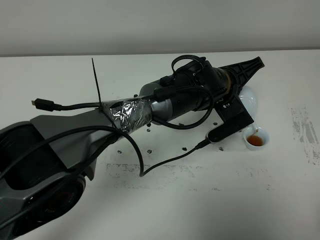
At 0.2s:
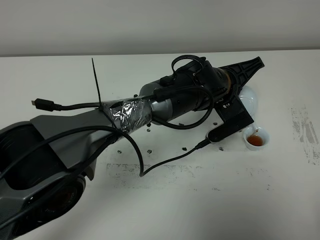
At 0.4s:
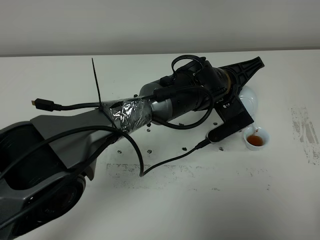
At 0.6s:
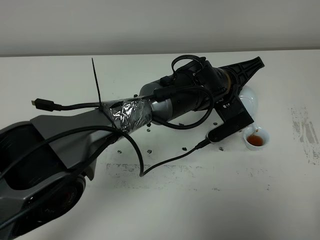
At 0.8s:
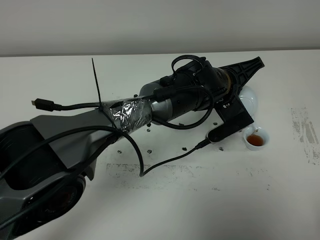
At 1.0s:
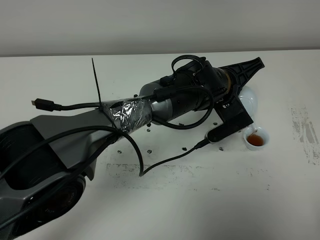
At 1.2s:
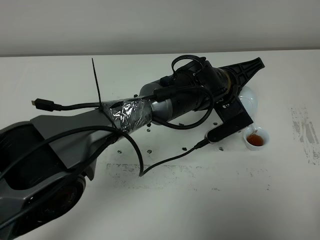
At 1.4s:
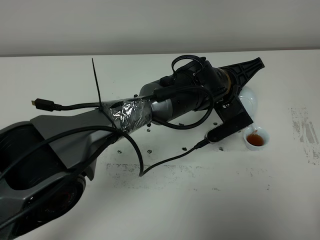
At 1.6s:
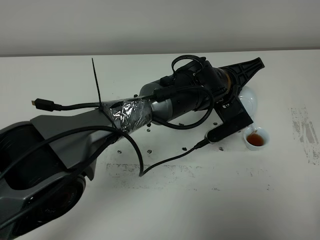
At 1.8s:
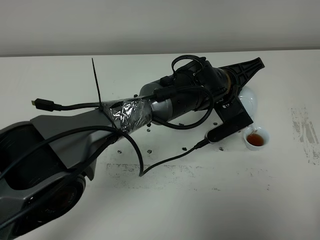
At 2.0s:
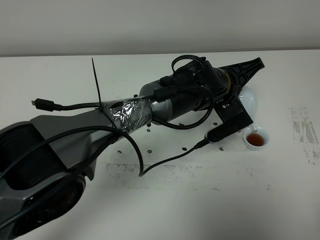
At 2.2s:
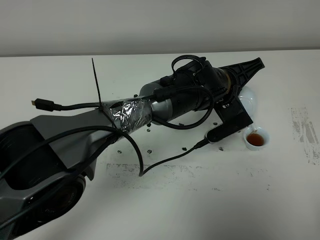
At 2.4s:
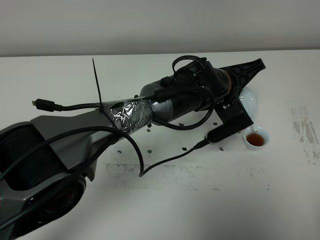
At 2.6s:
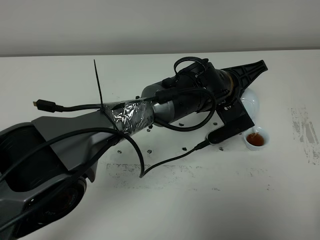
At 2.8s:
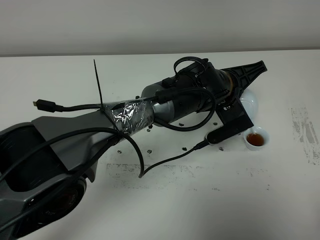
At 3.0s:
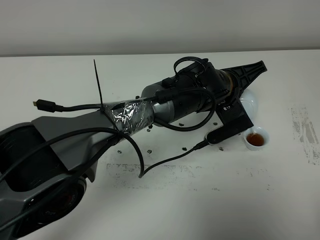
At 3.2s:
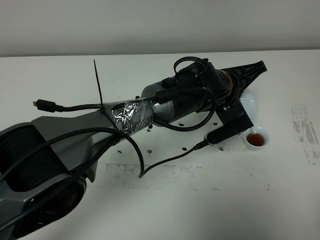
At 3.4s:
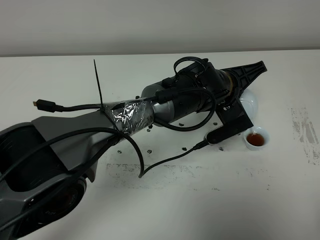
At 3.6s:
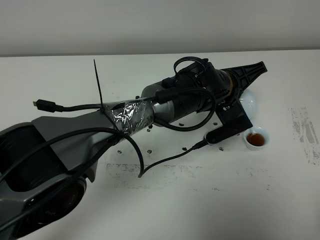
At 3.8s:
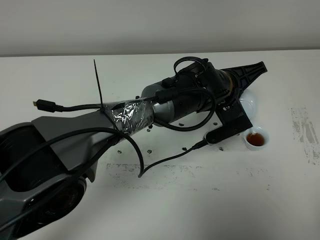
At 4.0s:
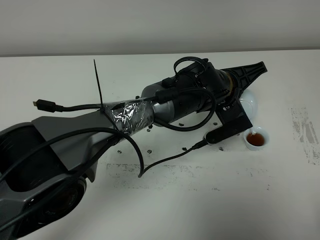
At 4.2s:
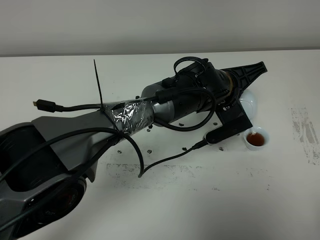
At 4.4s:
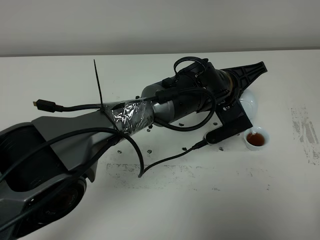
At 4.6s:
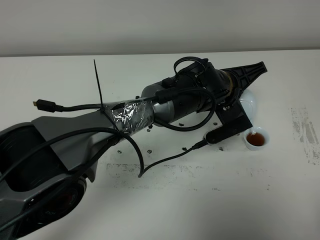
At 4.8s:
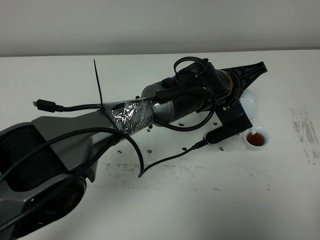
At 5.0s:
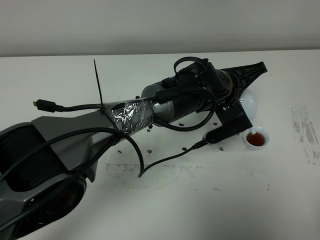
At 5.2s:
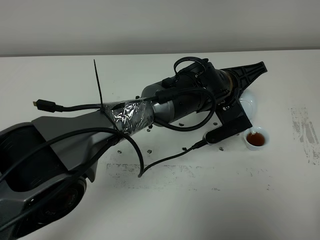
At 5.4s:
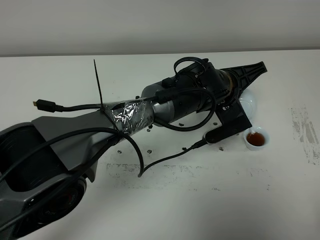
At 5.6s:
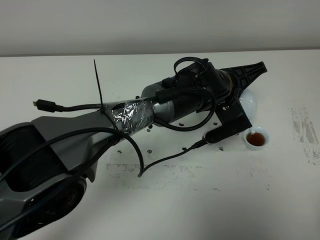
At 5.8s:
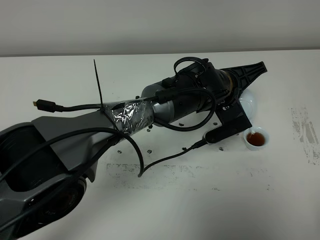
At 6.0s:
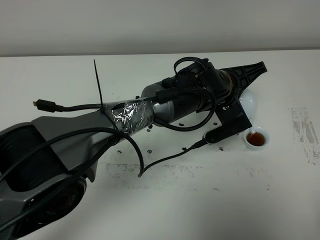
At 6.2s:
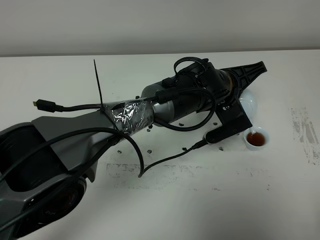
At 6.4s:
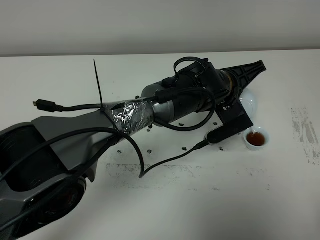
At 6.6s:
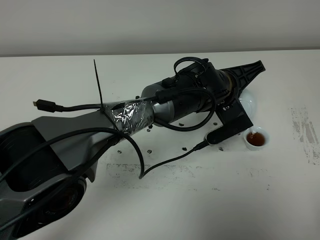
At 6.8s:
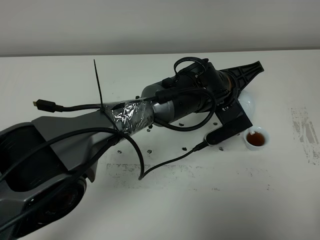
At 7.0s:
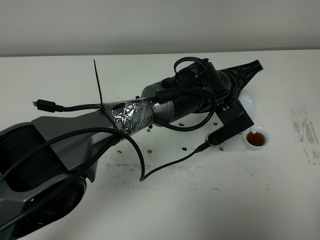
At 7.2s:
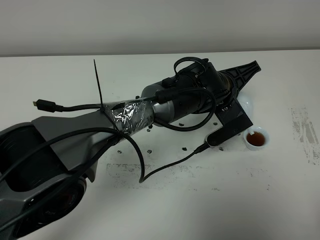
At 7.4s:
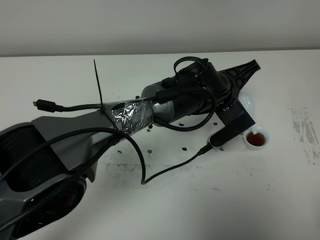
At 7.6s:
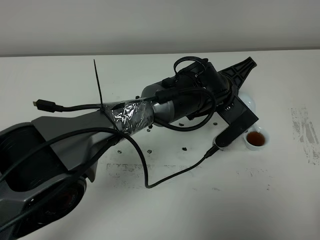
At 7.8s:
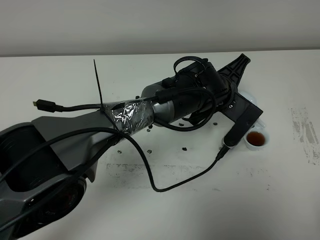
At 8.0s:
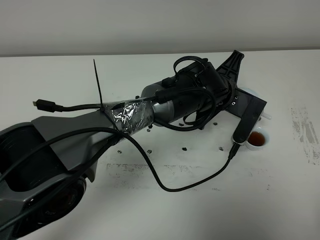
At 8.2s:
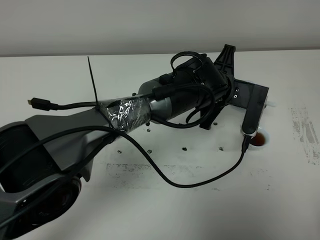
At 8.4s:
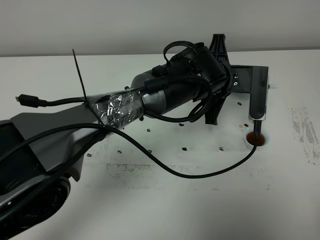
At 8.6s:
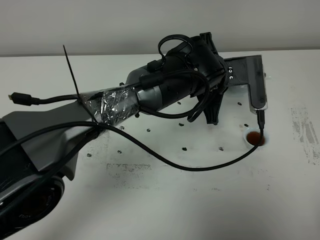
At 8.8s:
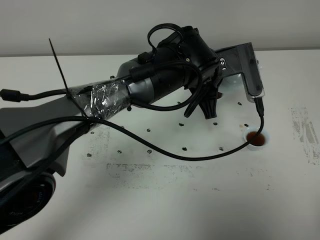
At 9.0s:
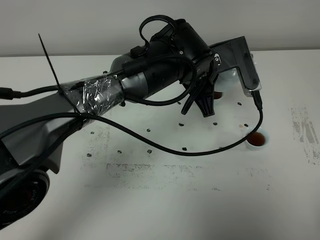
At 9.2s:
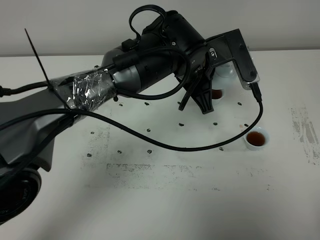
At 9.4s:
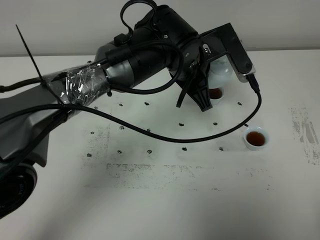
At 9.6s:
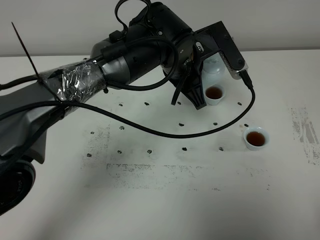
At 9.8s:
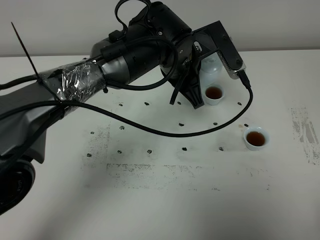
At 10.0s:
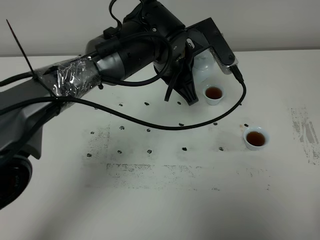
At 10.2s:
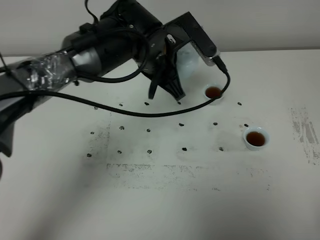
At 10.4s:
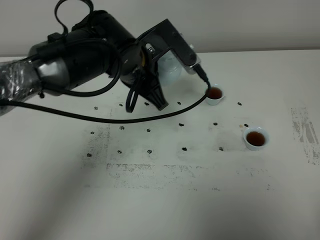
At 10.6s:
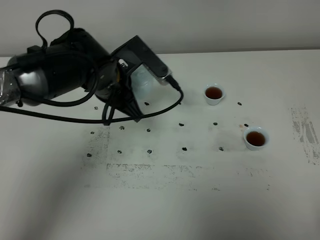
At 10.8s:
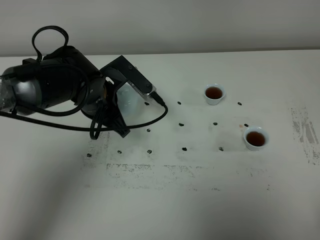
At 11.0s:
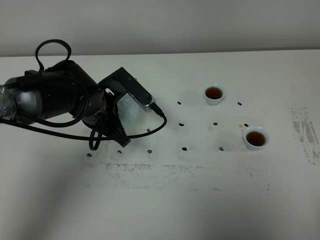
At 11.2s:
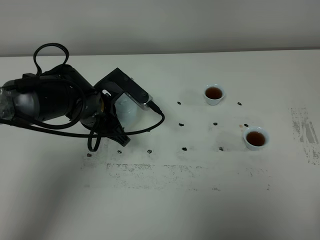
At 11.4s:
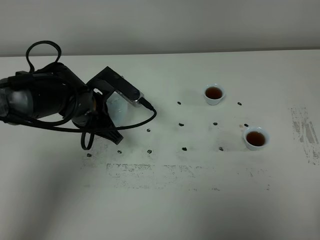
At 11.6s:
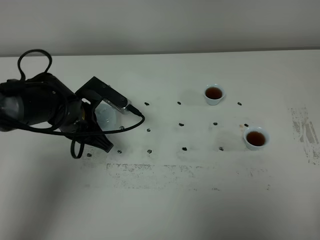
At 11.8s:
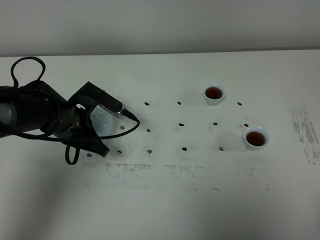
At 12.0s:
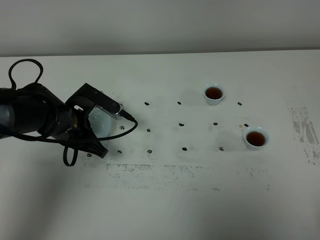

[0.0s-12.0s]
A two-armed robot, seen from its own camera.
Task of the whole recording: grasp the blue porcelain teapot and pour the tea into the two blue porcelain teacups one by one, put the blue porcelain teapot back in its original place.
Step, 0.0s to 7.8s: Pour tea into the teacup with the left gripper.
0.0s to 6.0s: Both grippers stay put.
6.0s to 7.6s: There are only small adjustments of the grippers.
7.6s to 9.0s: The left gripper travels upward by some 5 cm.
9.0s to 10.4s: The left gripper is displaced to the left by approximately 10 cm.
10.4s to 12.0s: The left gripper heads to the left and downward, covering approximately 15 cm.

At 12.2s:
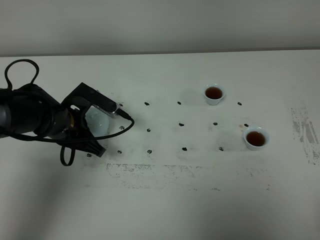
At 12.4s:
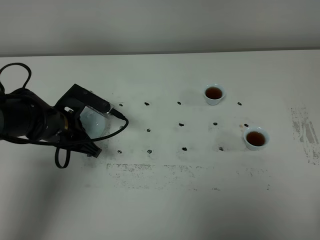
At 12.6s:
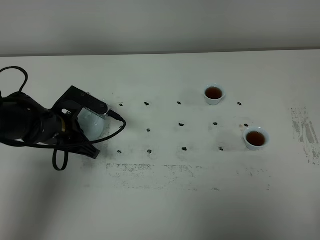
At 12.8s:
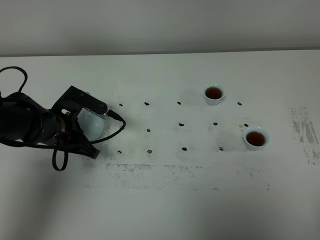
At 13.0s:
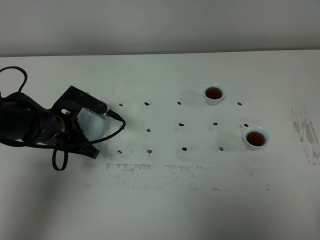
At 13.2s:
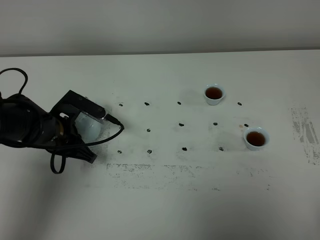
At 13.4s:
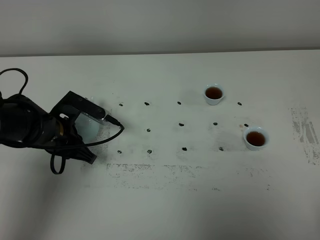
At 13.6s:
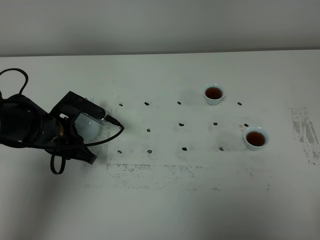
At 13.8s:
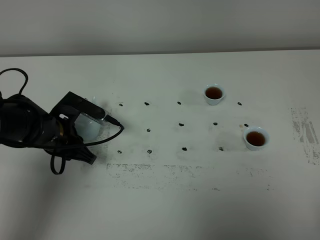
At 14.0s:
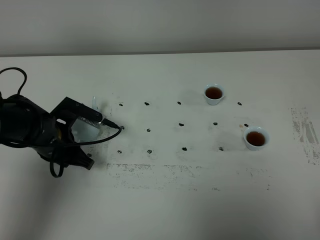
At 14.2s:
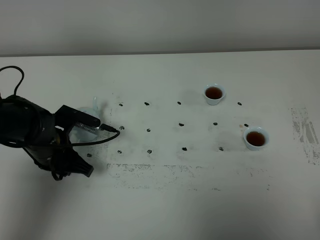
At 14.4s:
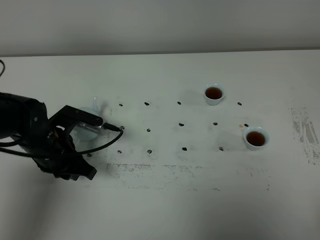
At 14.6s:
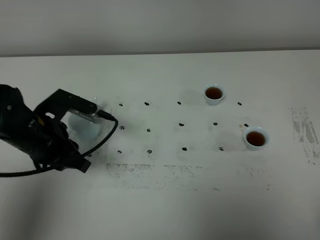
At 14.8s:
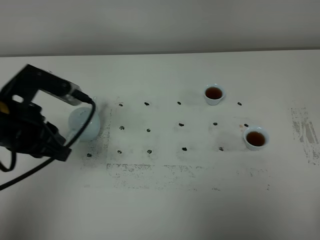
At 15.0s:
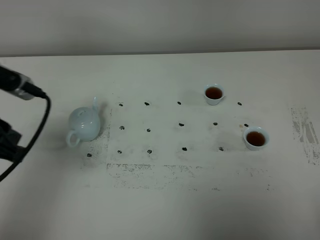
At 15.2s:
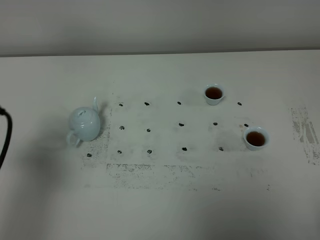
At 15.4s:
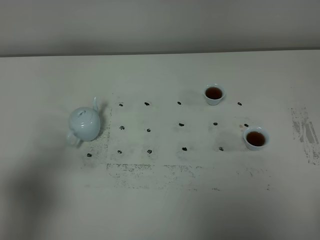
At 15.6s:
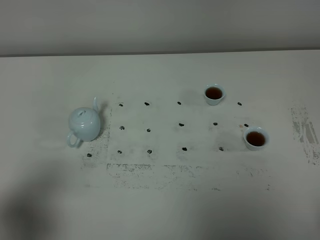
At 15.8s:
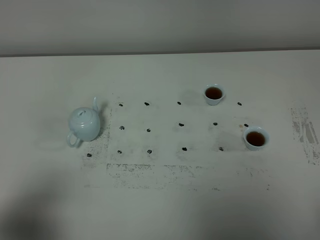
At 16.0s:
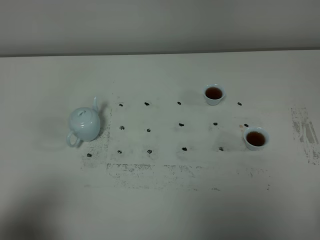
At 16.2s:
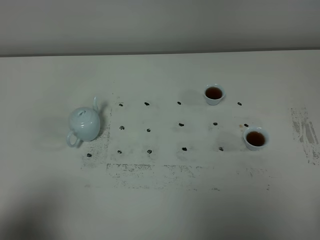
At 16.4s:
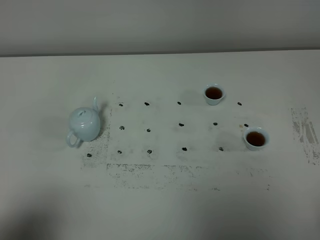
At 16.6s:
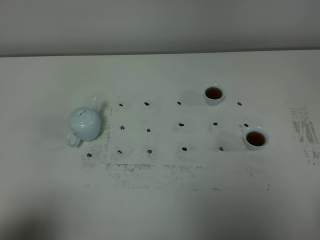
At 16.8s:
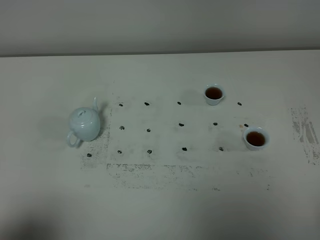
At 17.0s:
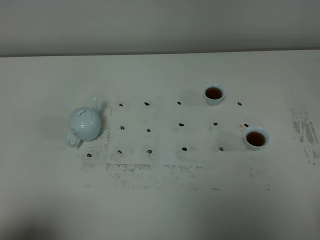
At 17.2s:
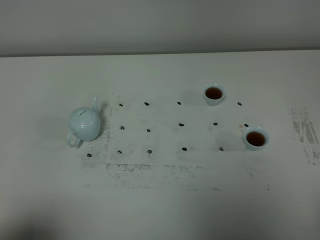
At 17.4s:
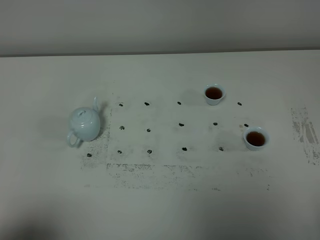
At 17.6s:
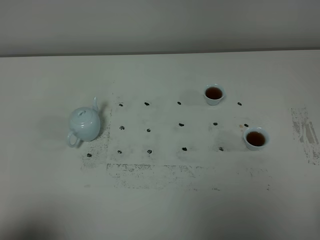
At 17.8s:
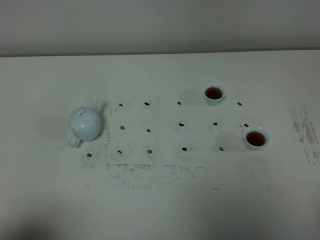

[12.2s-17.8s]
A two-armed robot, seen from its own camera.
Task of the whole recording: grasp the blue porcelain teapot and pour the tea into the two blue porcelain teacups one by one, put the blue porcelain teapot back in its original place.
12.2s to 13.6s: There are only small adjustments of the grippers.
13.6s to 15.0s: The left gripper is displaced upward and backward by roughly 20 cm.
15.0s to 16.4s: The left gripper shifts roughly 20 cm backward.

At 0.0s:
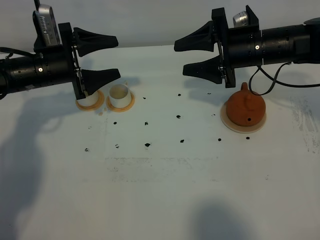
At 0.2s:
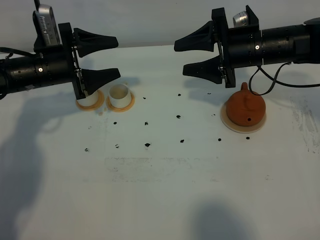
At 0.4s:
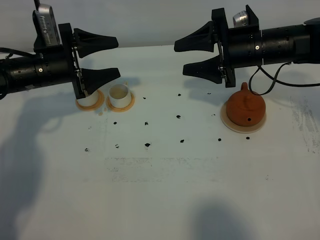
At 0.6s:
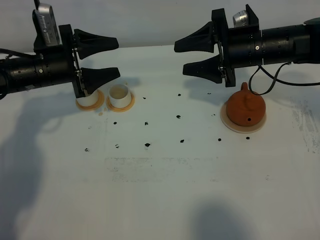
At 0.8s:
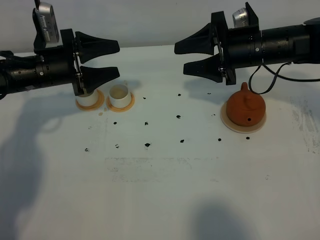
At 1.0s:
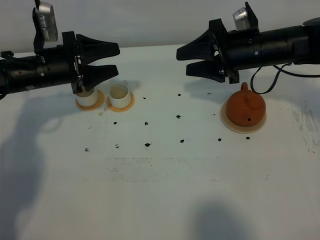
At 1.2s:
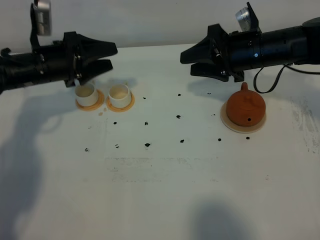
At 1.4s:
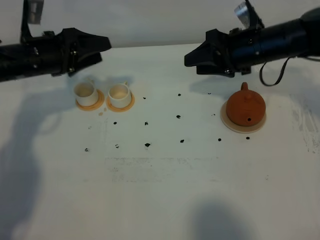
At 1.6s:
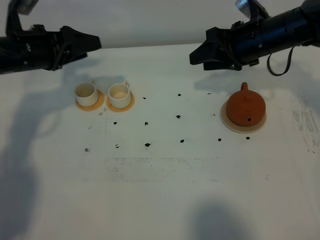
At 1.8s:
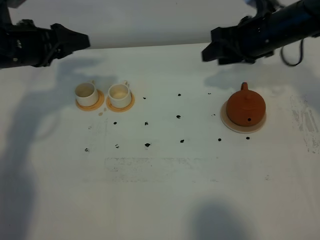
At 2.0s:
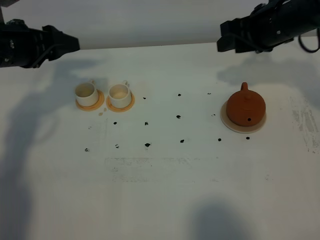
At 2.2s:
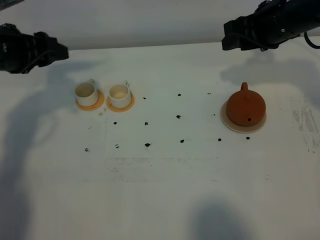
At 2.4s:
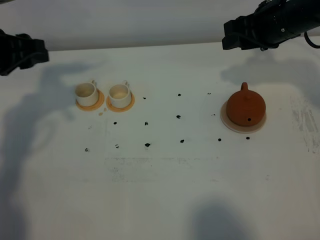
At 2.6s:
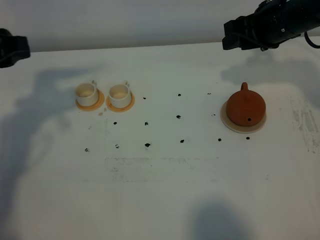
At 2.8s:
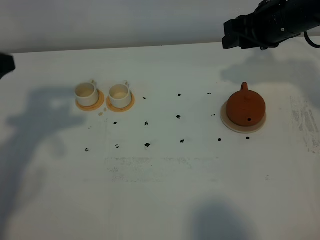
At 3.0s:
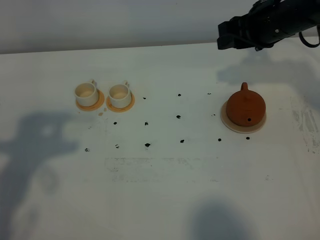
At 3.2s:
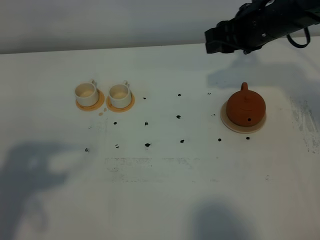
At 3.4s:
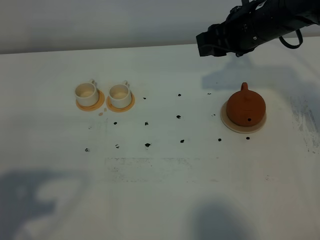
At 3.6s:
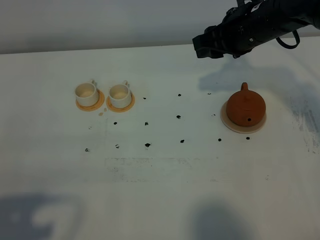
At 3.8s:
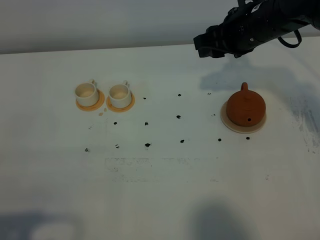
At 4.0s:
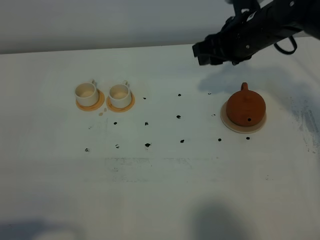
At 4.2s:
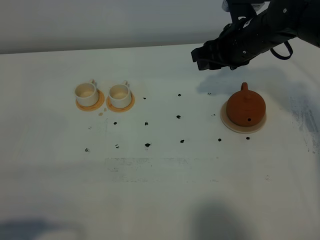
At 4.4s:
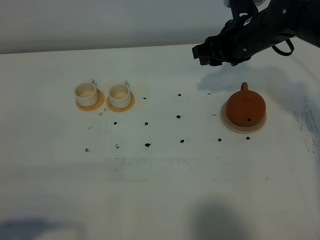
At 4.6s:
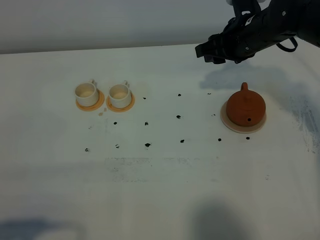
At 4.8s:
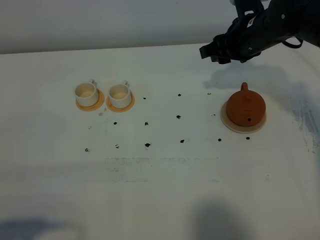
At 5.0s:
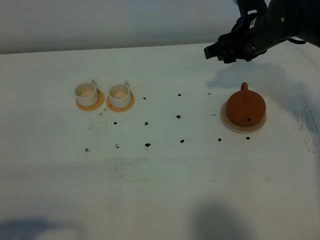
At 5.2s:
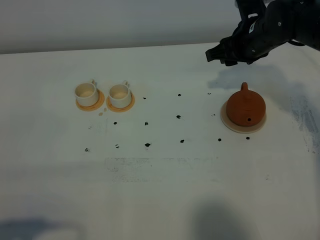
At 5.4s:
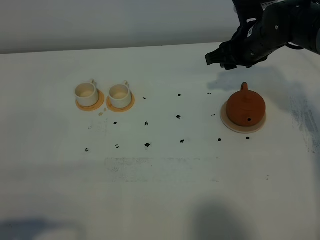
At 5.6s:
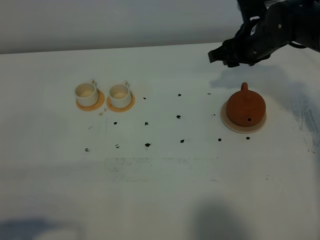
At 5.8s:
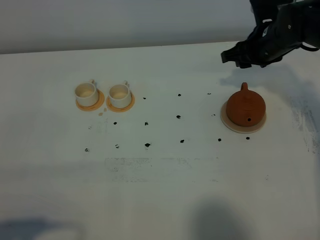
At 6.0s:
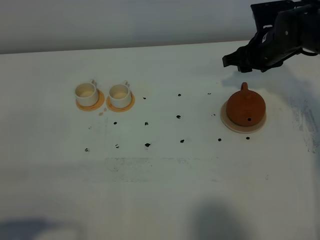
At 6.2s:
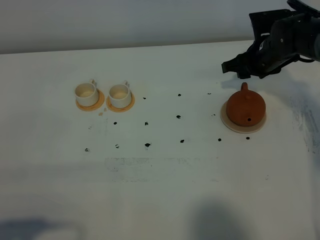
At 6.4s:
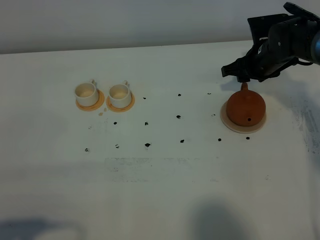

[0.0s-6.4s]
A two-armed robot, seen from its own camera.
Task of the whole recording: grasp the brown teapot and pour the tea into the two white teacups one by one, put the brown teapot back in its original place.
0.0s to 1.6s: The left gripper shifts some 5 cm upward.
1.6s to 3.2s: The left gripper shifts some 25 cm backward, and closes its fingers.
3.2s to 4.8s: The left gripper shifts approximately 15 cm backward and downward.
4.8s to 6.4s: The right gripper goes approximately 10 cm downward.
